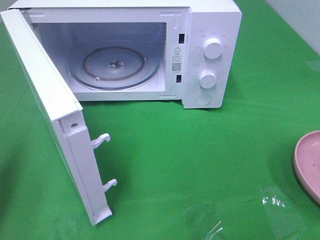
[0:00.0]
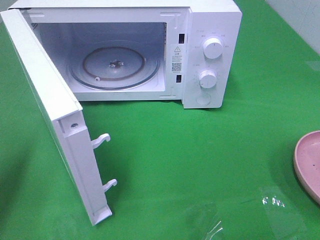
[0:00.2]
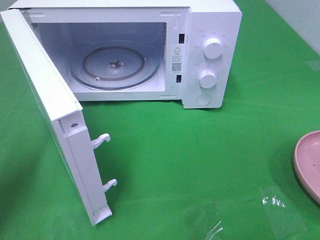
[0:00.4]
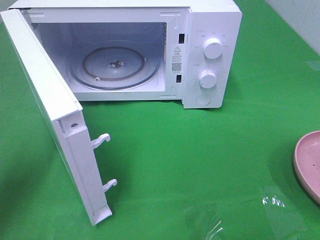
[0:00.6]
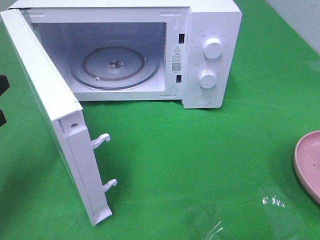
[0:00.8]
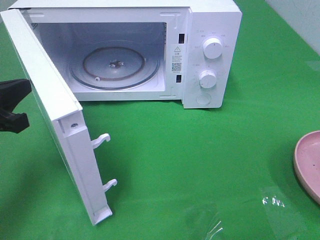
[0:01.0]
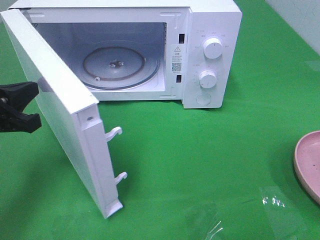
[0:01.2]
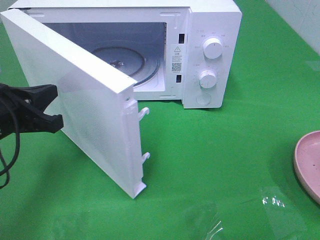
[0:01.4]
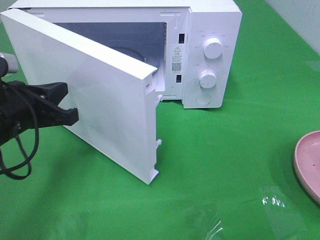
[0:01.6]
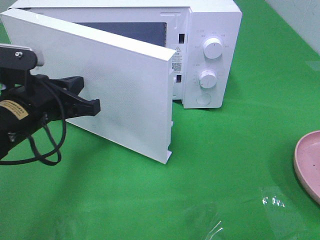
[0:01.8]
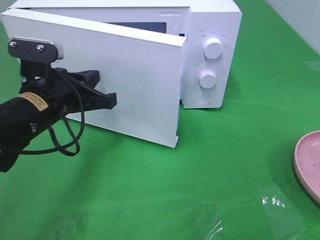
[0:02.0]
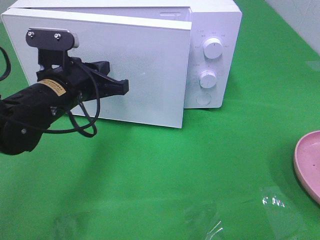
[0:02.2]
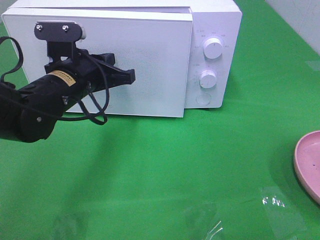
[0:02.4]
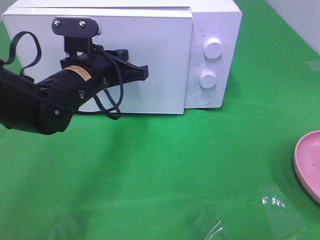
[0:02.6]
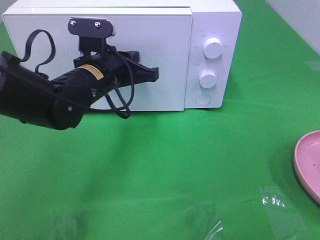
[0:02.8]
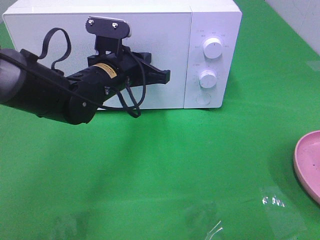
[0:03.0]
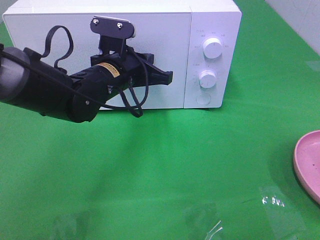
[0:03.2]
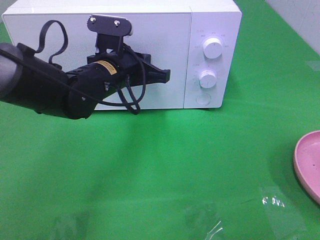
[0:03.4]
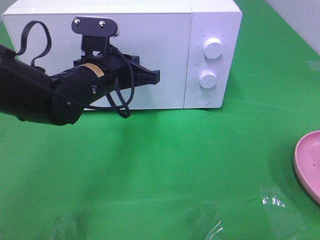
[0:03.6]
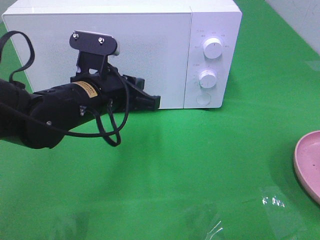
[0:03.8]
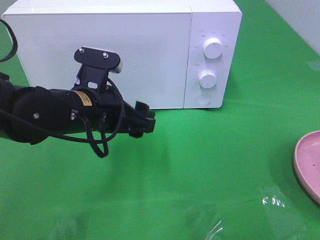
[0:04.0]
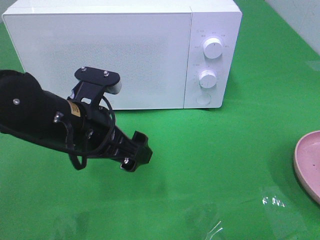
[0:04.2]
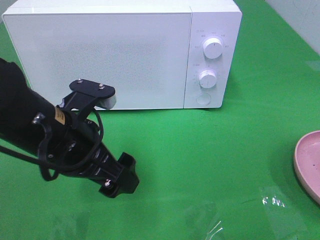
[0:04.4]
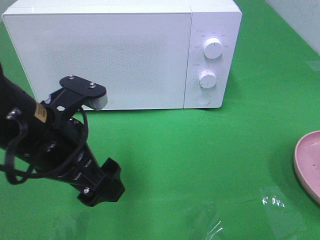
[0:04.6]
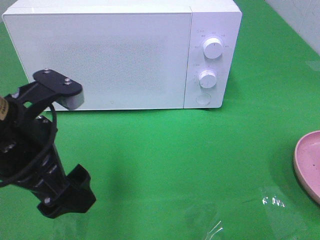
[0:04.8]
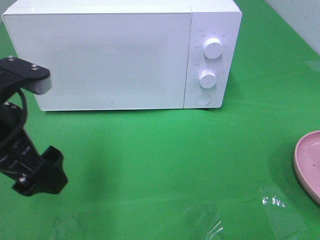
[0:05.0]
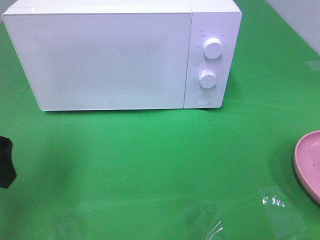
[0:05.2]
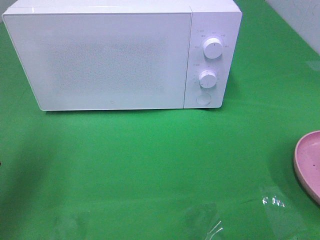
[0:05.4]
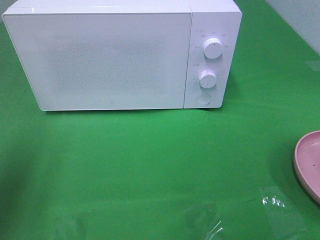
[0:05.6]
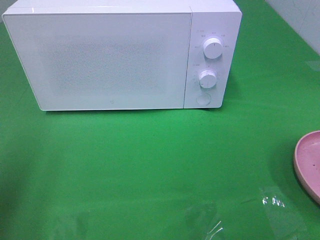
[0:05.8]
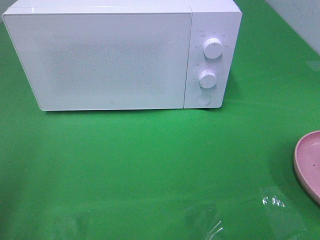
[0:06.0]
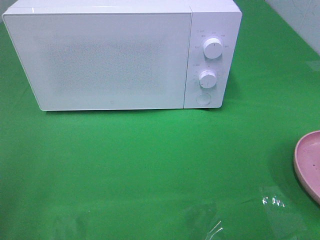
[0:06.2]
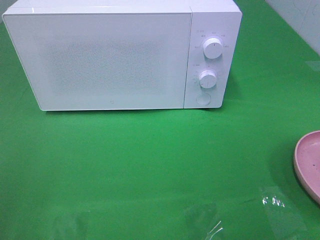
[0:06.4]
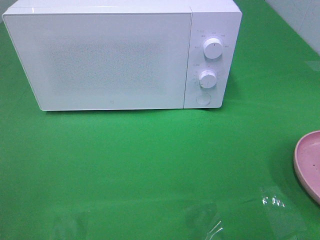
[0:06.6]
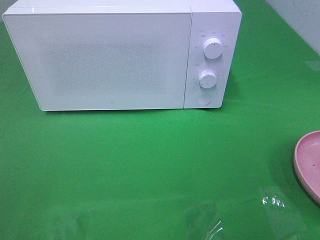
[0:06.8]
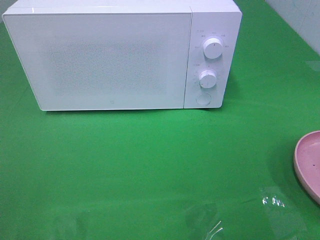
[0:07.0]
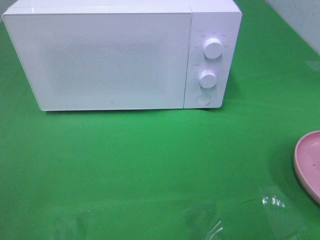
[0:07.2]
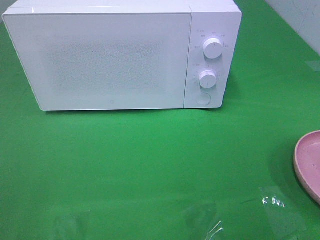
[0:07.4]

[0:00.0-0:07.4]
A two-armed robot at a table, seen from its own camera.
Task of the whole recording: Heat the burger.
Step, 0:00.0 to 0:03.8: Left hand: close the microwave door.
0:00.0 to 0:01.4: The left gripper is displaced to the right, forward and downward by roughly 15 cm.
0:01.4 to 0:03.0: The left gripper shifts roughly 20 cm to the right and forward.
0:03.0 to 0:04.4: The left gripper heads backward, covering some 15 cm, and opens.
0:04.4 to 0:06.0: The left gripper goes approximately 25 cm to the left, backward and upward.

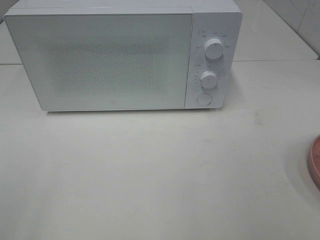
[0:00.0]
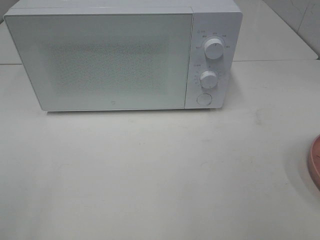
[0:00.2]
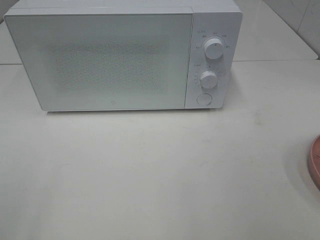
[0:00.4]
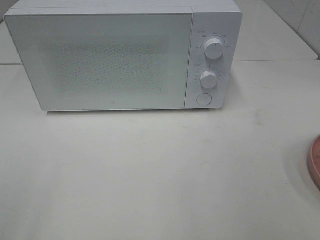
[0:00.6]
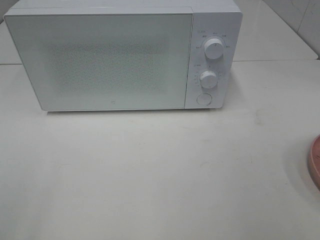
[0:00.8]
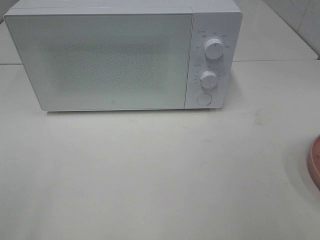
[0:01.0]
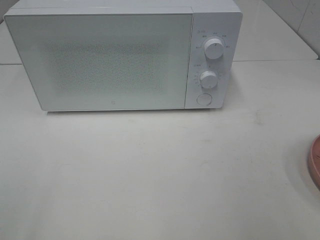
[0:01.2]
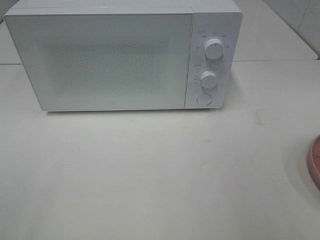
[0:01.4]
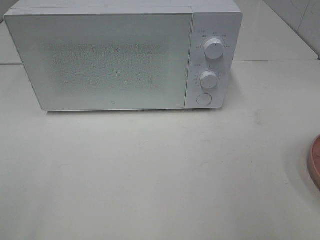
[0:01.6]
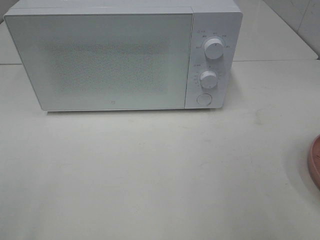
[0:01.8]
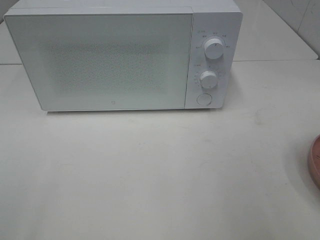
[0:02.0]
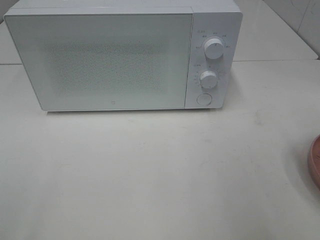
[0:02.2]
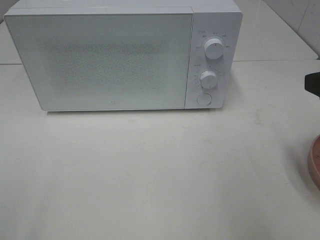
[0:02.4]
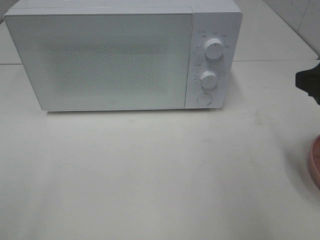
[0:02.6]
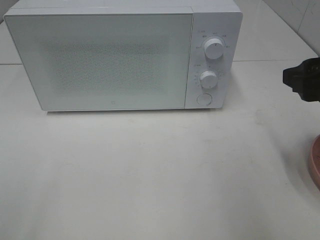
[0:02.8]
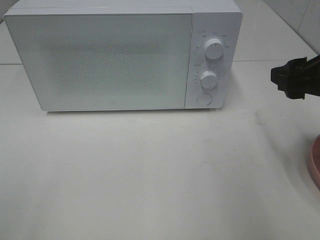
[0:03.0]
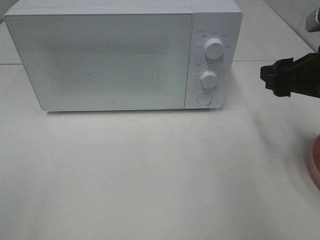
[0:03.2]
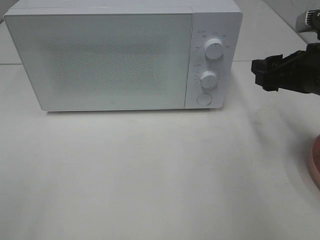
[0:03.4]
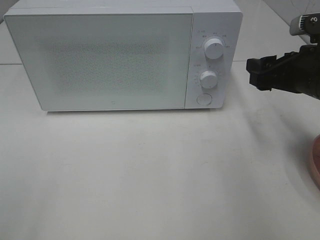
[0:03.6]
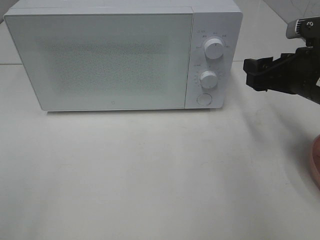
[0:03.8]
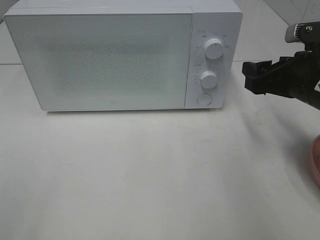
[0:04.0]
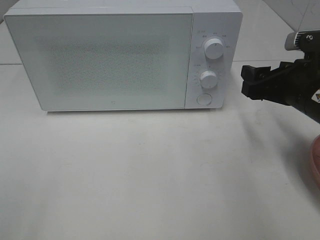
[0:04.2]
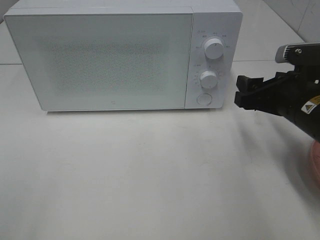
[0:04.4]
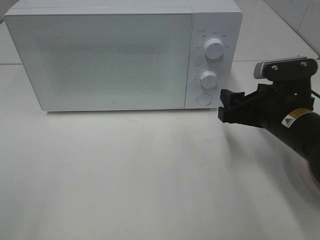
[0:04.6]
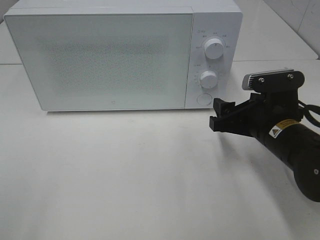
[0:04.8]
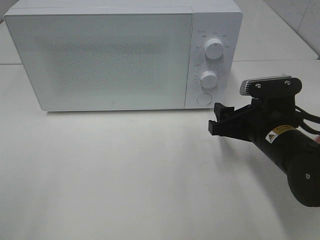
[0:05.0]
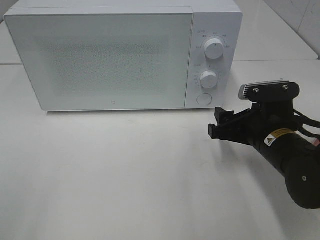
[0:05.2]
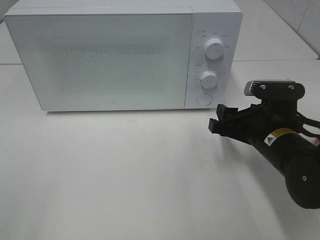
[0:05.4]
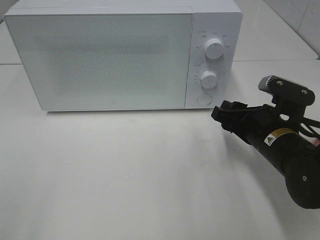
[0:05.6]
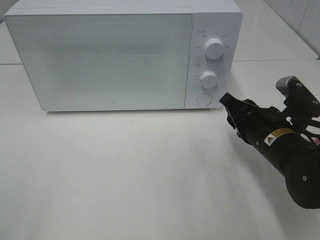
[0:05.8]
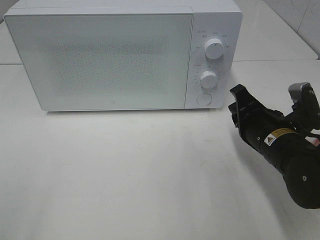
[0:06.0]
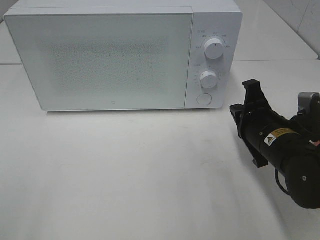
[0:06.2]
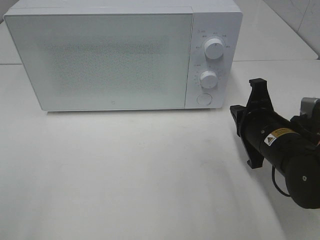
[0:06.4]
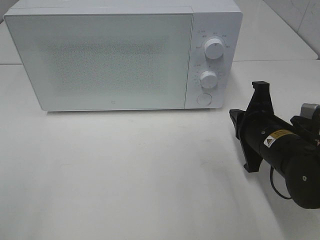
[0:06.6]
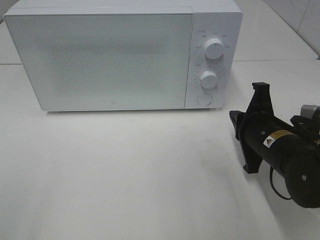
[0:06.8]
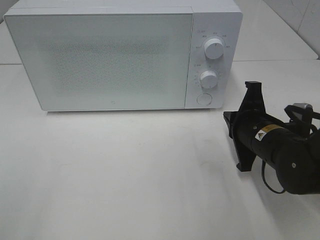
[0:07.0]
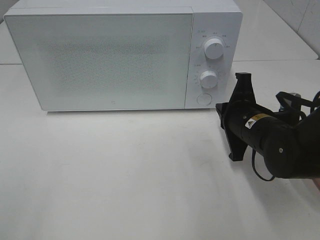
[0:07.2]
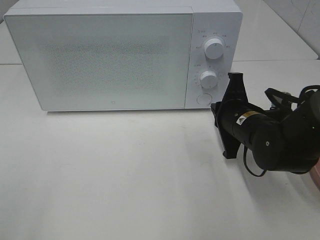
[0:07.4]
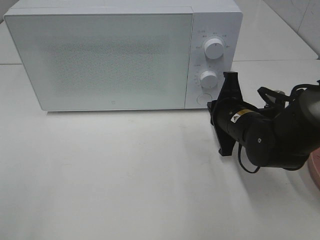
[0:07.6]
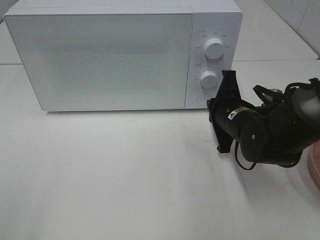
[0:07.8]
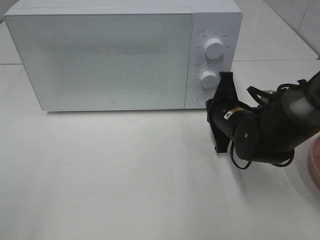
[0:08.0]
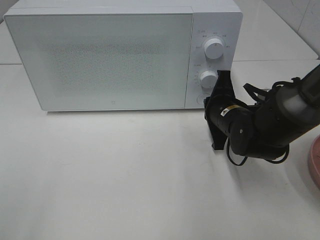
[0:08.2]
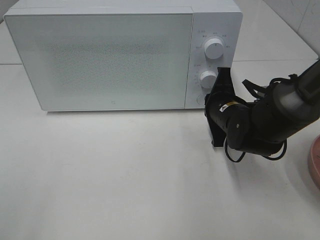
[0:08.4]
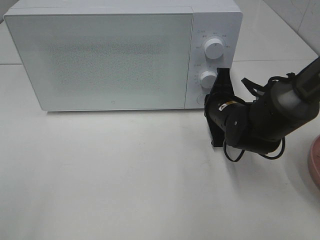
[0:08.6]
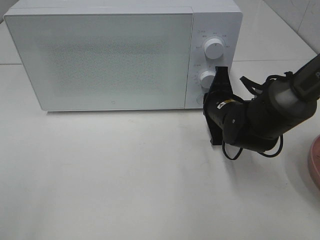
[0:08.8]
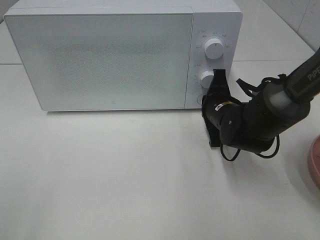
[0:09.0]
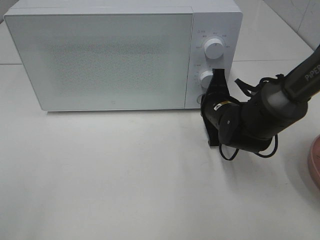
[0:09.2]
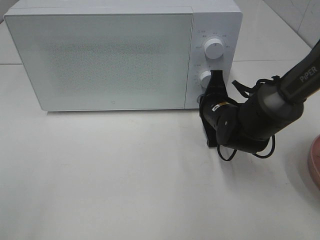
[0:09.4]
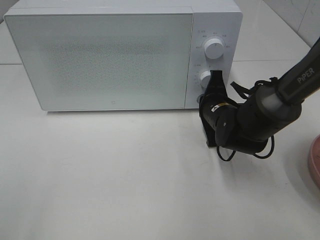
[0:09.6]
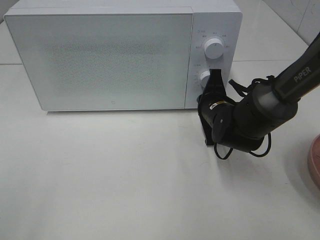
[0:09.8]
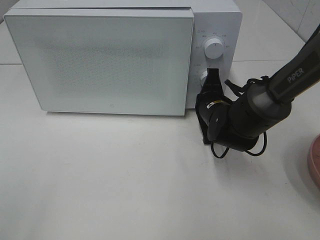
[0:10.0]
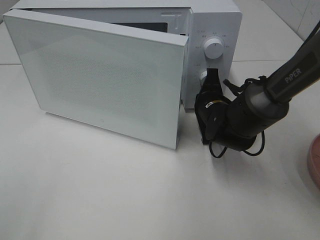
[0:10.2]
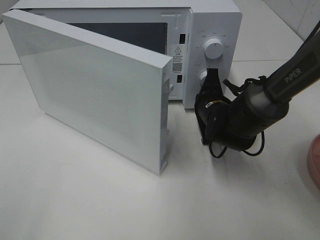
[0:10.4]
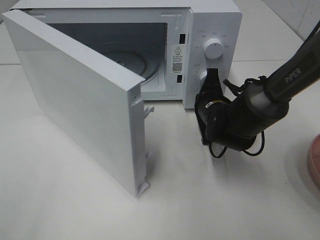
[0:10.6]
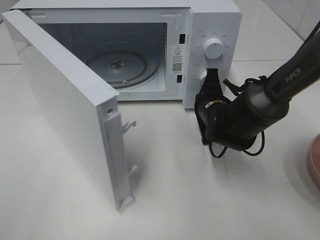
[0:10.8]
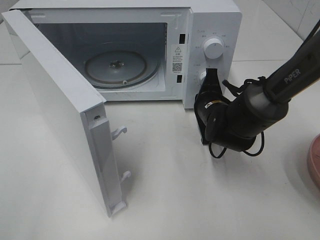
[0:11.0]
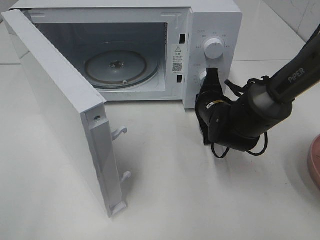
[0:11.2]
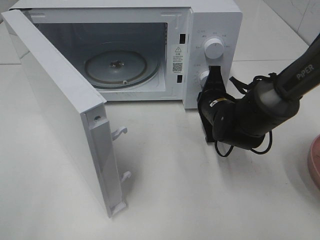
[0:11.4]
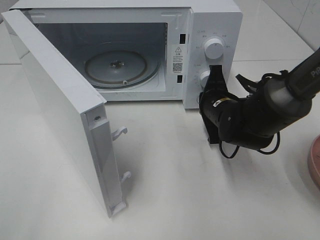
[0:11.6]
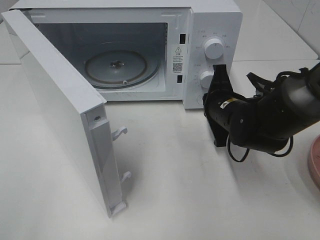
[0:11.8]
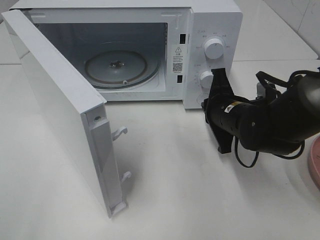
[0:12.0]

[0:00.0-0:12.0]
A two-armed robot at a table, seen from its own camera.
Task of the whole recording: Heat the burger.
0:01.6 to 0:03.0: The right gripper goes roughly 15 cm forward.
0:03.0 to 0:04.4: The right gripper travels downward by roughly 5 cm.
0:04.4 to 0:06.0: The right gripper heads downward, covering roughly 5 cm, and closes up.
0:06.0 to 0:07.6: The right gripper heads forward, covering roughly 5 cm.
0:07.6 to 0:09.0: There are only small adjustments of the grippers.
0:10.4 to 0:12.0: The right gripper is displaced backward by approximately 5 cm.

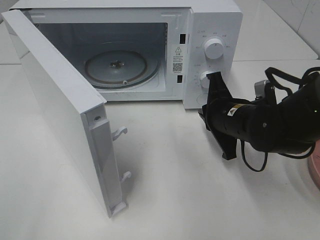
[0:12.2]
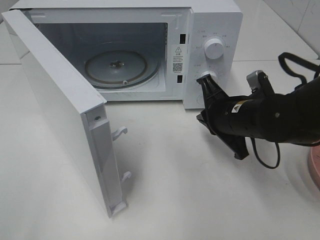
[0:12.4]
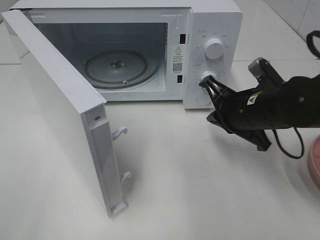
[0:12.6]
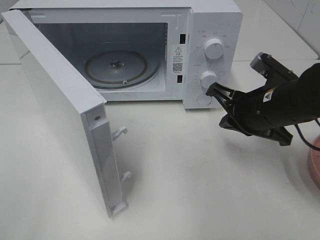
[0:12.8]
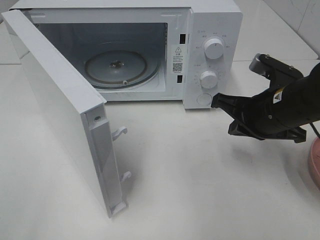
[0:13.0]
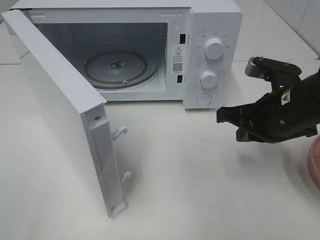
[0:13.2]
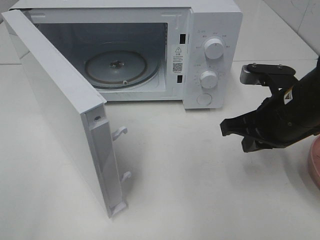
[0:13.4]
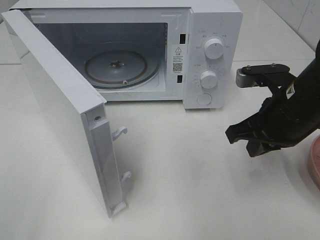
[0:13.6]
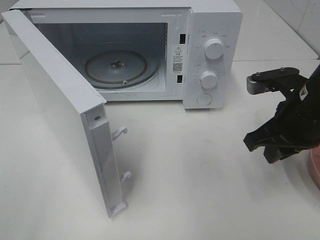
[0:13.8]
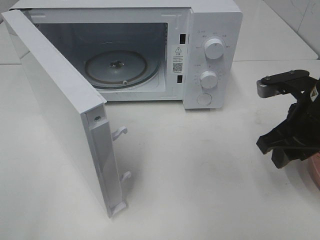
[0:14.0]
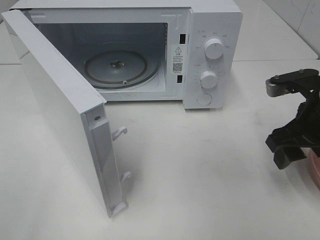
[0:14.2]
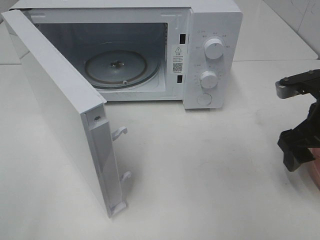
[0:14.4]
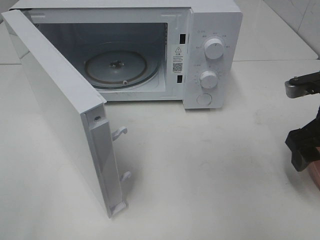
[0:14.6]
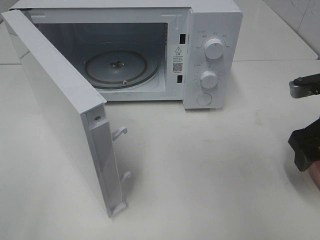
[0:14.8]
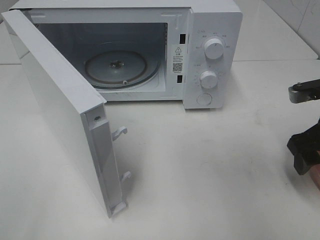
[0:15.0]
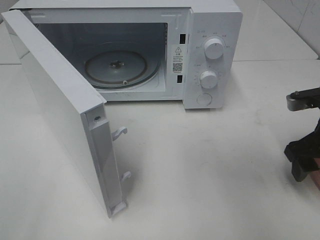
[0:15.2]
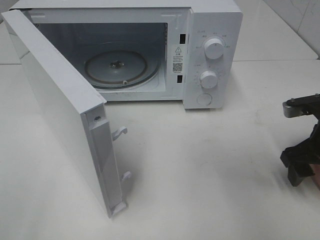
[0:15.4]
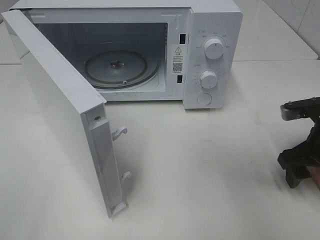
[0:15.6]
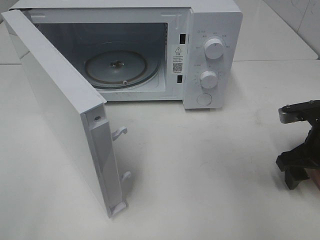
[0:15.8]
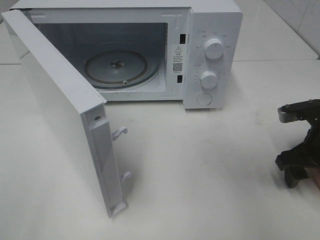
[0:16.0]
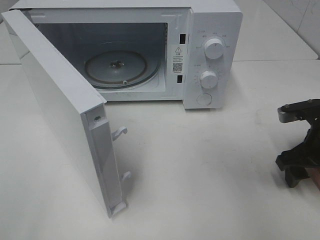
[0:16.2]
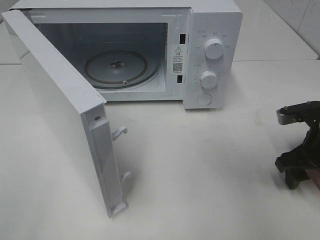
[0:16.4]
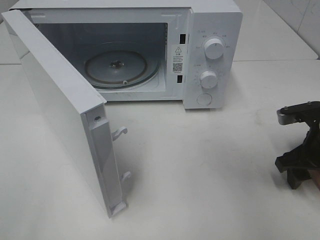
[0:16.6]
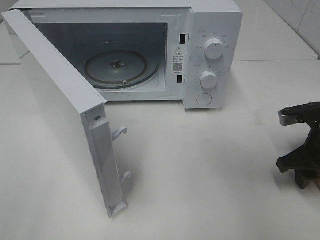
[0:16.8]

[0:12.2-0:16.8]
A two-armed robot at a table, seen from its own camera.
Task of the whole recording: Heat the burger.
0:12.2 to 0:13.8: The right gripper is displaced upward and to the right by roughly 10 cm.
0:13.8 to 0:15.2: The right gripper shifts roughly 5 cm to the right, and opens.
0:15.2 to 0:16.8: The right gripper closes its fingers.
